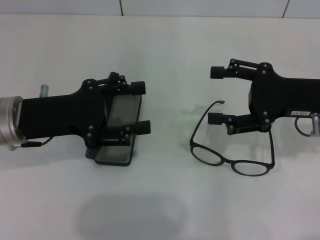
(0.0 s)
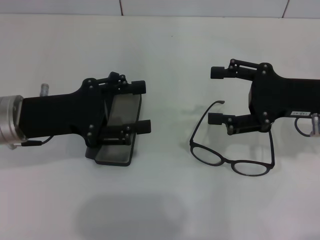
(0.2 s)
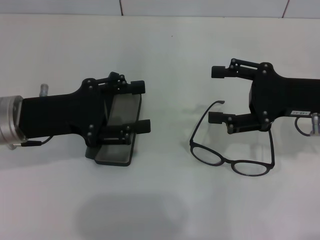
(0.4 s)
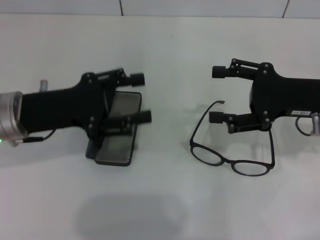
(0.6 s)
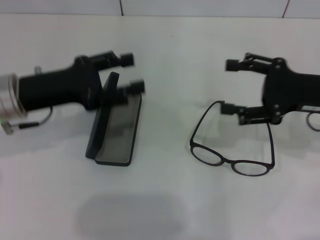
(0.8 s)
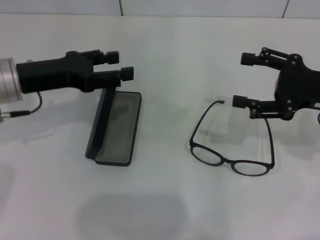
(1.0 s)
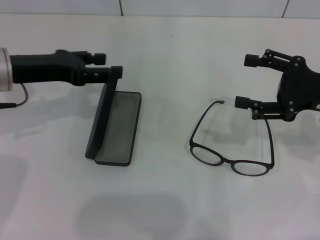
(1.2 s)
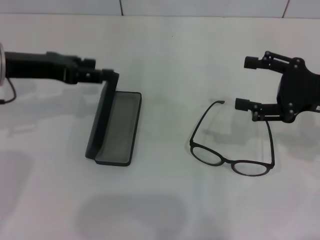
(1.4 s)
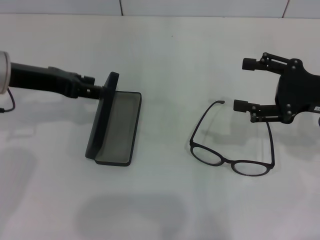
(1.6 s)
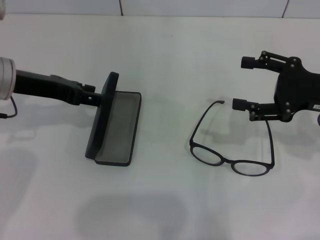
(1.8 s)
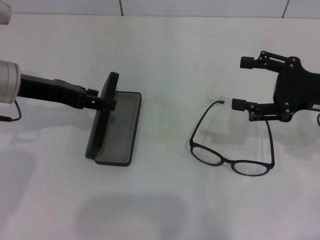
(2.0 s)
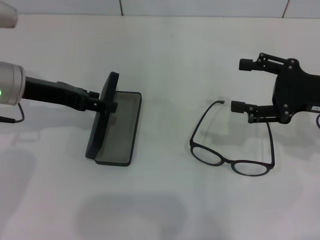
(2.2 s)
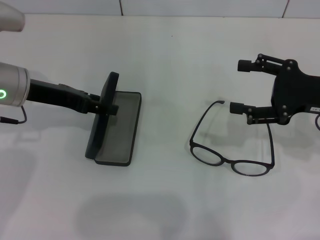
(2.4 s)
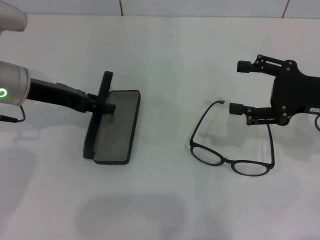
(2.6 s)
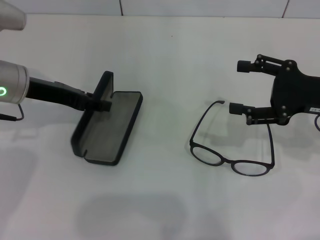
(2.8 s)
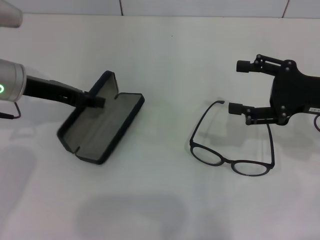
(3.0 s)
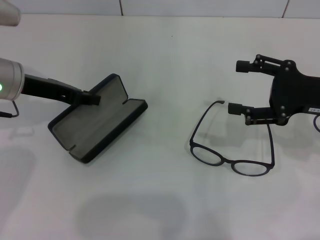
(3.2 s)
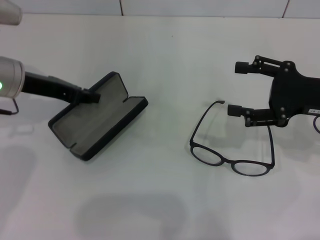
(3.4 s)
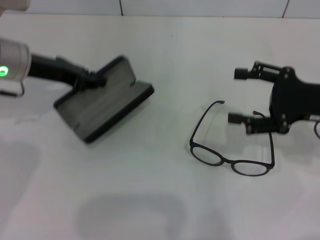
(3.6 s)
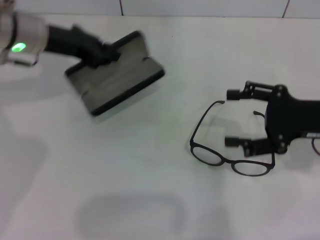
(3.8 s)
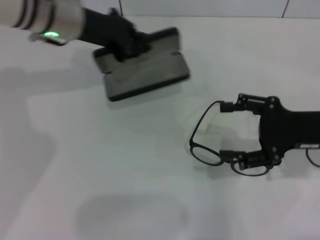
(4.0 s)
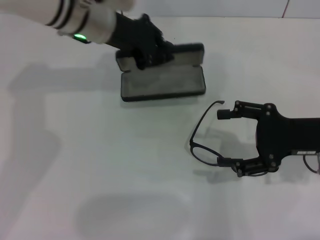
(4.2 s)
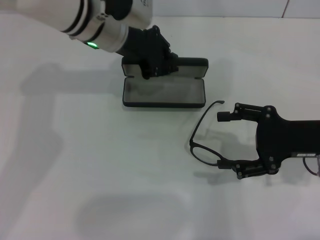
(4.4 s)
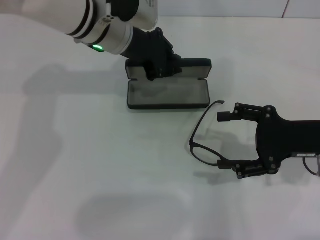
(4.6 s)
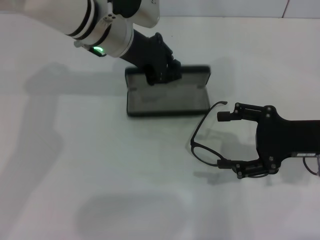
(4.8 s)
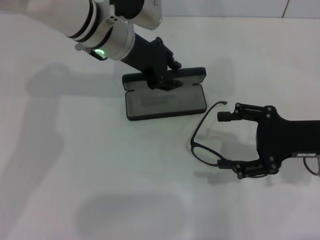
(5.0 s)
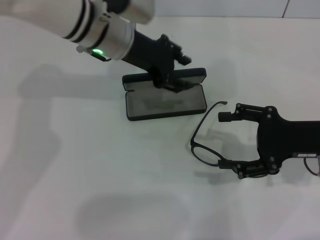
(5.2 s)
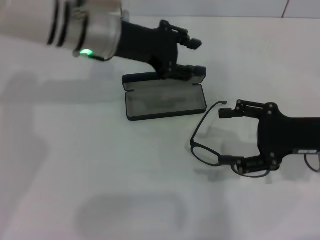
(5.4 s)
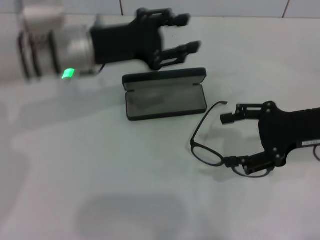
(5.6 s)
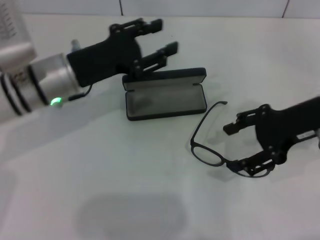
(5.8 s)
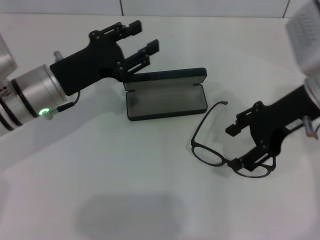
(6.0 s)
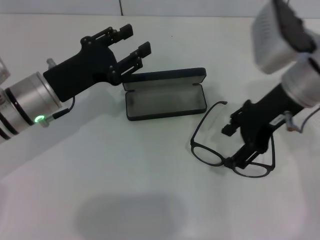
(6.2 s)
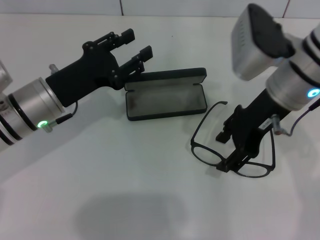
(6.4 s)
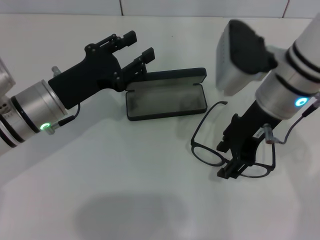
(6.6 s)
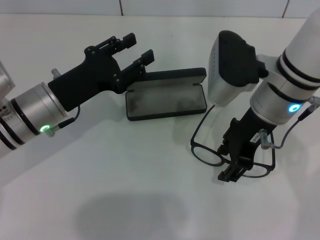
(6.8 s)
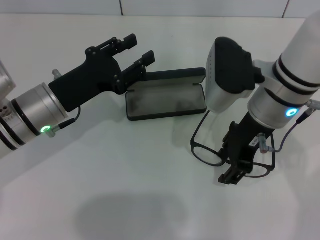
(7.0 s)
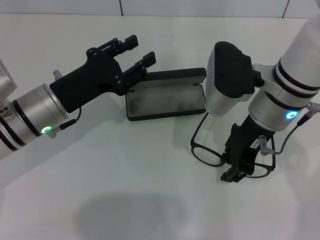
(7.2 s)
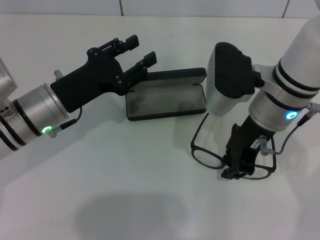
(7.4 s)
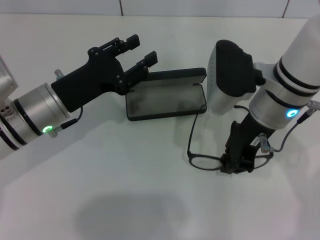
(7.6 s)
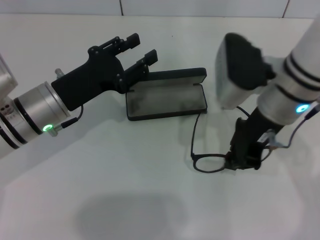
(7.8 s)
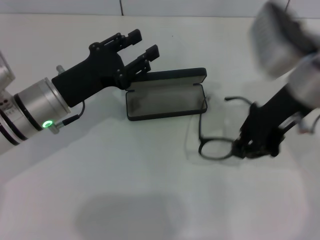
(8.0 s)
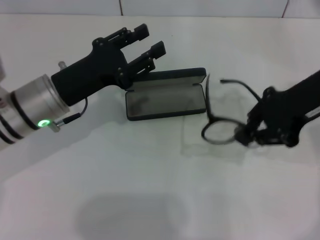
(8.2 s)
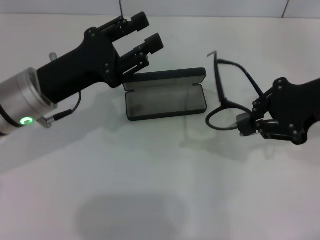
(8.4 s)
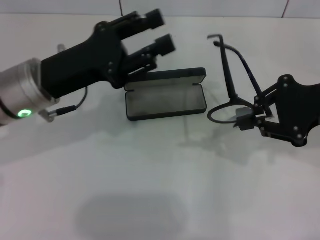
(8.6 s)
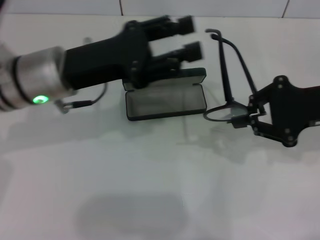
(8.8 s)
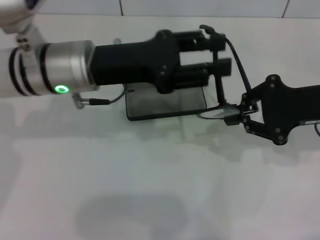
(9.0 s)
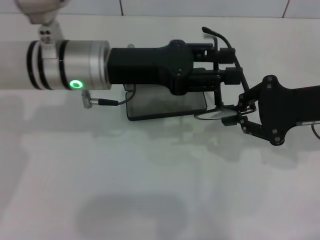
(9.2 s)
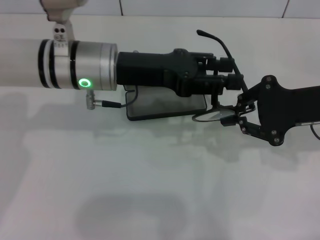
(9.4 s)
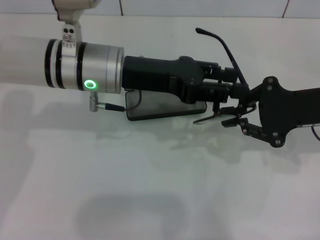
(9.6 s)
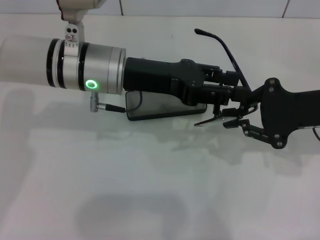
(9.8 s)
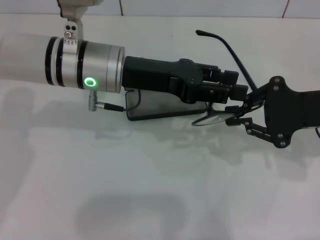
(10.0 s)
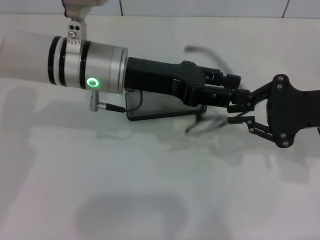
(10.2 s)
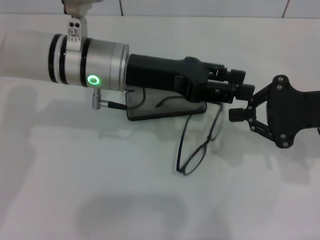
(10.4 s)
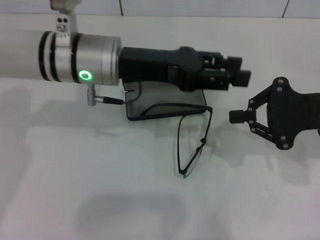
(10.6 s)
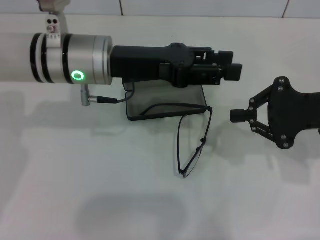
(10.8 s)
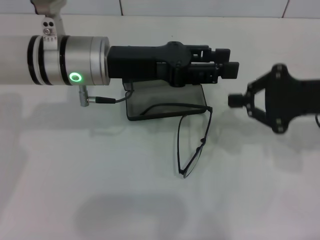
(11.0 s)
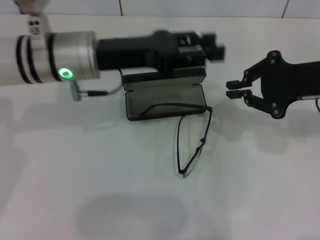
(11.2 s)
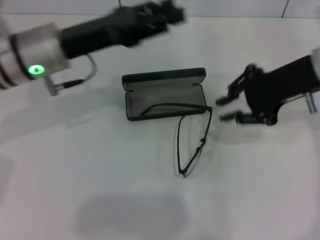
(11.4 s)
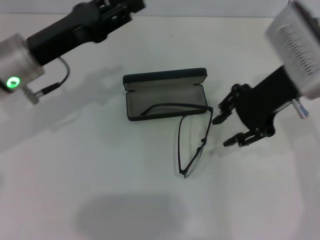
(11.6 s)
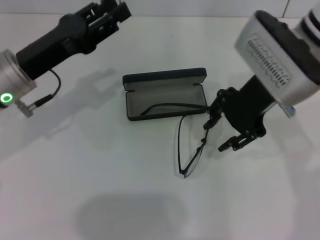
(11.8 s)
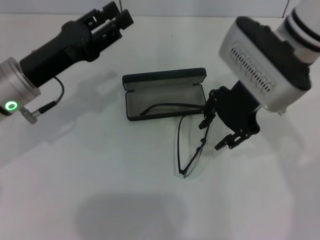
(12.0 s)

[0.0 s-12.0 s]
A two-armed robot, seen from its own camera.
Step, 0.0 to 3.4 s: Grab the glasses case with your left hand.
Step, 3.6 to 4.8 s: Place the glasses case in the center of the table with your left hand.
0.0 to 1.6 s: The left gripper travels forward by some 5 cm.
1.6 to 3.0 s: The left gripper closes its fingers.
3.0 to 4.4 s: The left gripper travels to the right and forward by about 15 cm, and closes.
4.4 to 6.0 s: The right gripper heads upward, to the left and forward, covering approximately 10 cm. The left gripper is displaced backward, to the left and downward by approximately 15 cm, and opens.
6.0 to 7.6 s: The right gripper moves to the left, roughly 10 cm, and closes up.
7.6 to 9.0 s: The right gripper travels to the right by approximately 15 cm. The left gripper shifts roughly 10 cm upward and to the right.
10.4 to 12.0 s: The right gripper goes about 15 cm to the left and forward, and opens. Meanwhile the left gripper is displaced to the left by roughly 10 cm.

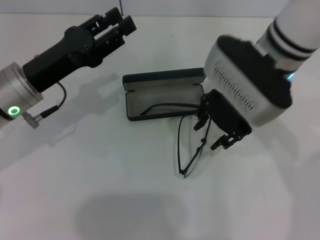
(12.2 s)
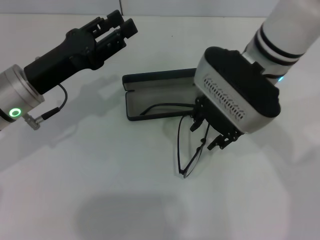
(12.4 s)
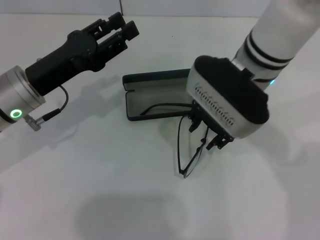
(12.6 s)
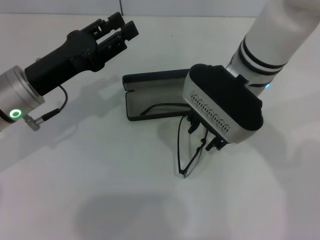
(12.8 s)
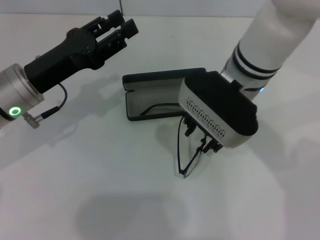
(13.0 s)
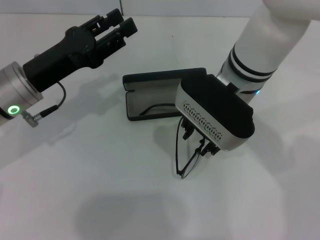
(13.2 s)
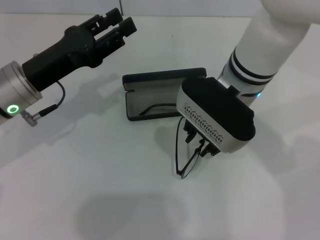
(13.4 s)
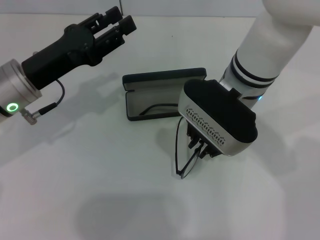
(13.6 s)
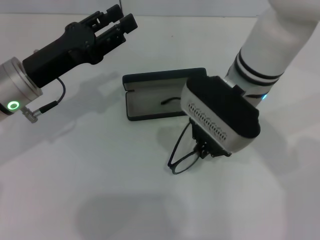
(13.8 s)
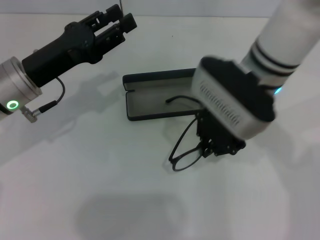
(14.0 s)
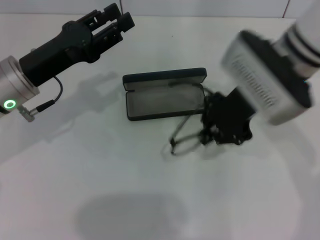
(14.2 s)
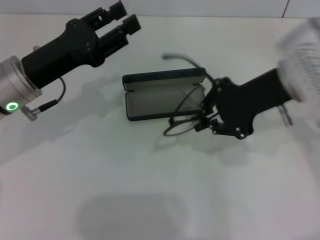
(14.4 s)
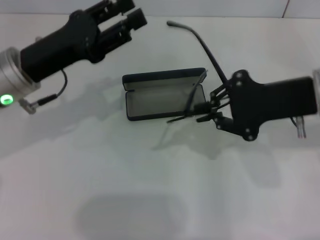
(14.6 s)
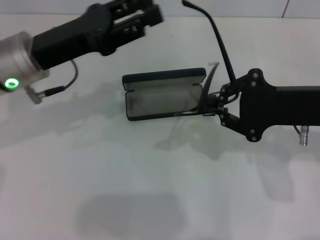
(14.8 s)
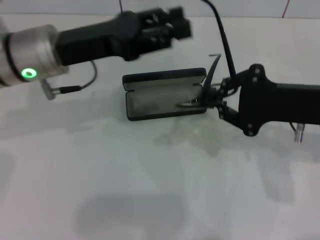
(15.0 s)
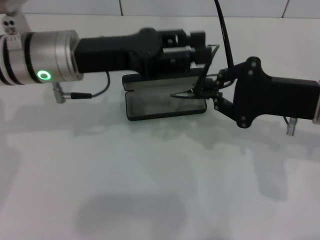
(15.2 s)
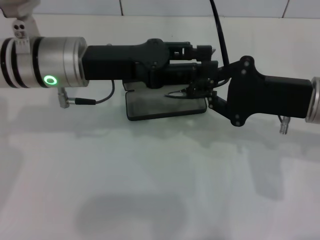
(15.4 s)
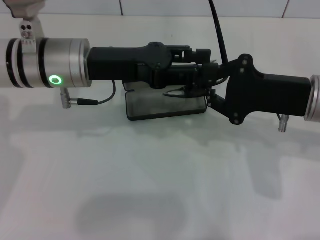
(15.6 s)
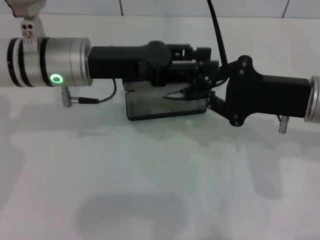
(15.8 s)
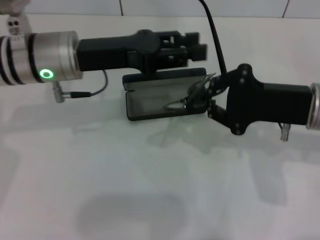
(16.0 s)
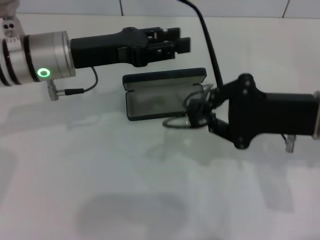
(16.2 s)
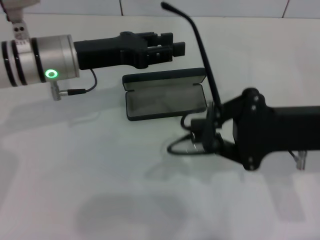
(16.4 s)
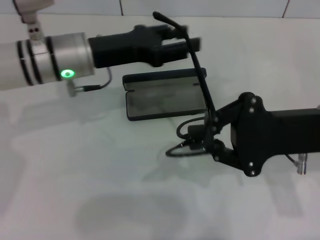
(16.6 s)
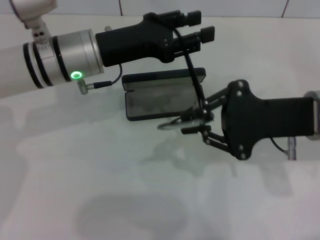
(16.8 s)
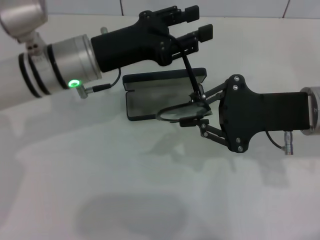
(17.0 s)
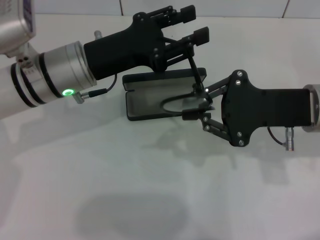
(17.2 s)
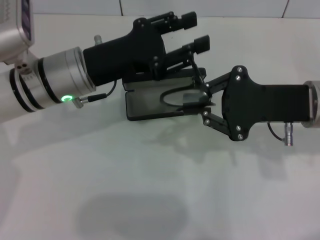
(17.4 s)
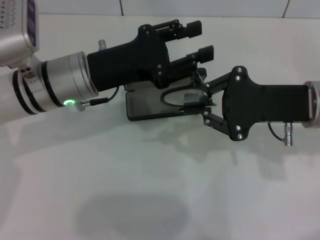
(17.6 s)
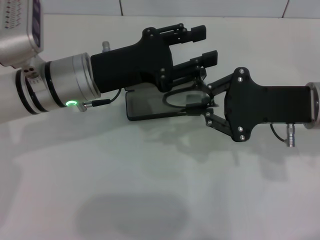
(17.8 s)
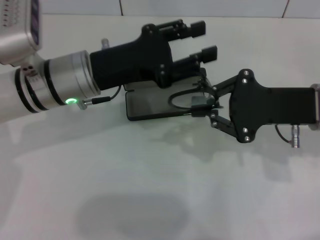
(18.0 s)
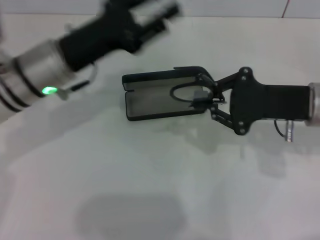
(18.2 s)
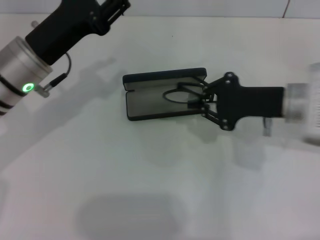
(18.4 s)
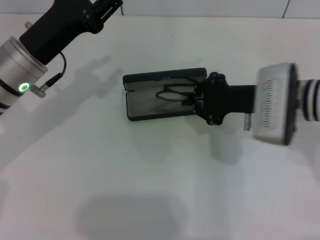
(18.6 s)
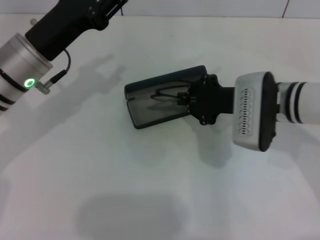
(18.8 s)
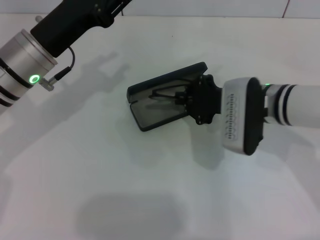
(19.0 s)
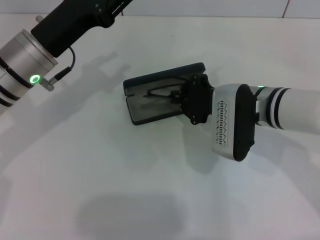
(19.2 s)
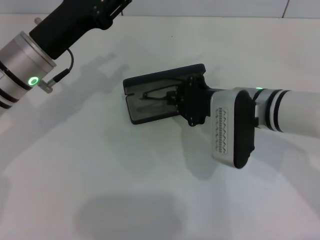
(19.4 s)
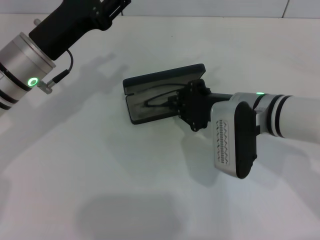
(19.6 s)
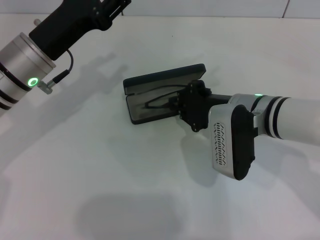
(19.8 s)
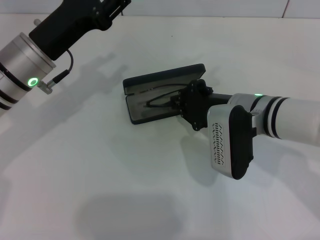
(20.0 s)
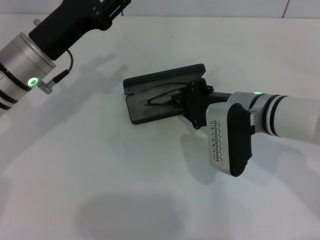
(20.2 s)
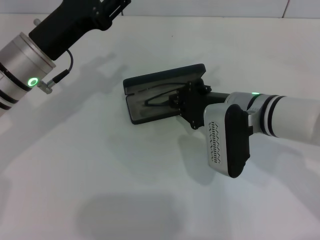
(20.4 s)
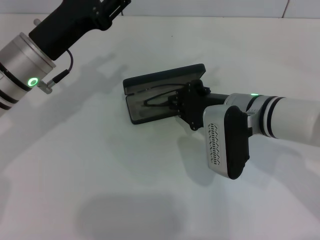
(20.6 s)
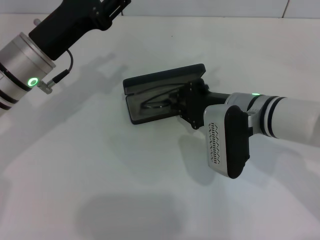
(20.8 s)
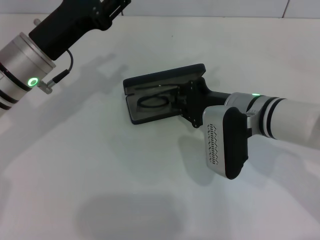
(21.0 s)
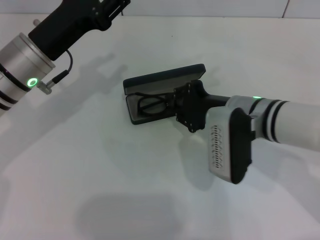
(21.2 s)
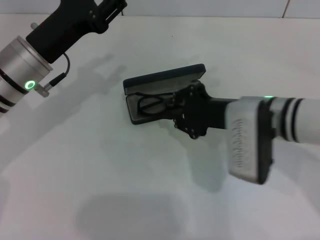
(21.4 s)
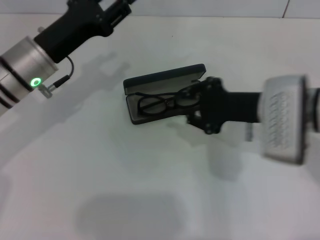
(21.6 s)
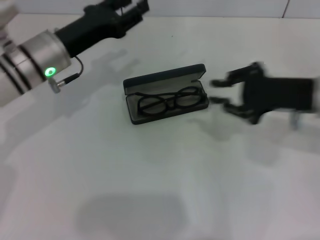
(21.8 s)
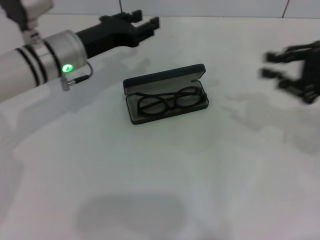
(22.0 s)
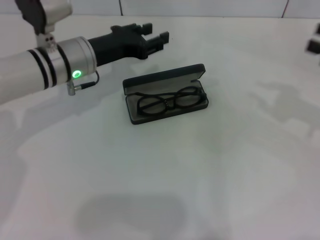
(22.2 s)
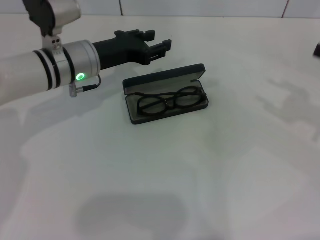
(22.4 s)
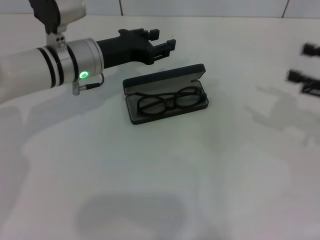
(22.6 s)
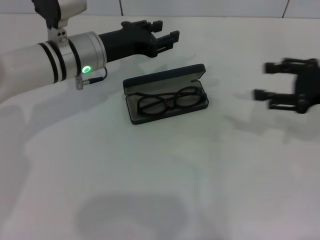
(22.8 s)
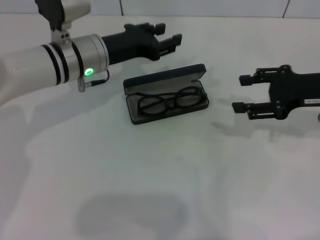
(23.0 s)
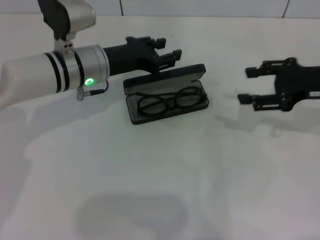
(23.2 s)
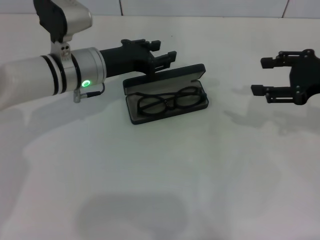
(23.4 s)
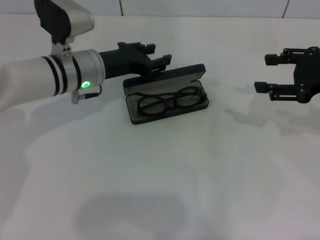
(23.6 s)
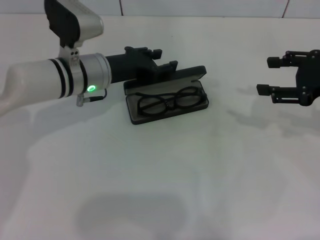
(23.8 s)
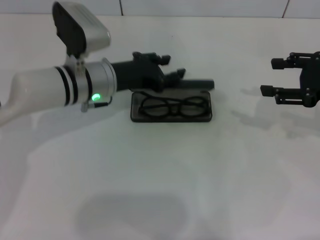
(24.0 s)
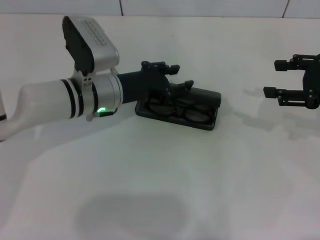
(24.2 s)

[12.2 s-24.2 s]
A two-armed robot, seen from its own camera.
Step, 13.8 to 17.8 s: Fold the frame with your left hand.
Step, 18.0 to 21.2 s: Put the glasses into the case with your right hand.
12.2 to 13.8 s: The grippers make only small movements.
13.8 to 15.2 s: The right gripper shifts roughly 15 cm to the right. Meanwhile the left gripper goes approximately 10 cm to the right and upward.
16.6 to 18.2 s: The right gripper changes place by about 5 cm.
18.2 to 19.8 s: The right gripper shifts roughly 10 cm to the left.
19.8 to 21.2 s: Both grippers stay put.
21.2 to 22.6 s: The left gripper travels forward and to the right by about 10 cm. Meanwhile the right gripper is displaced to the right by roughly 20 cm.
22.6 to 24.2 s: The left gripper ends up some 5 cm from where it was.
